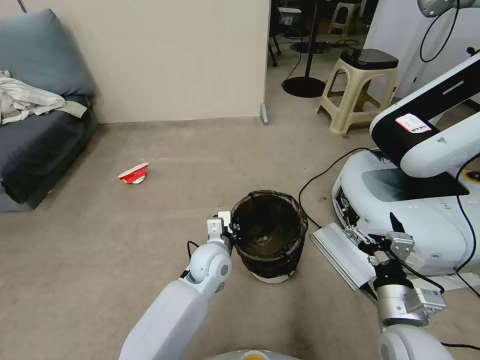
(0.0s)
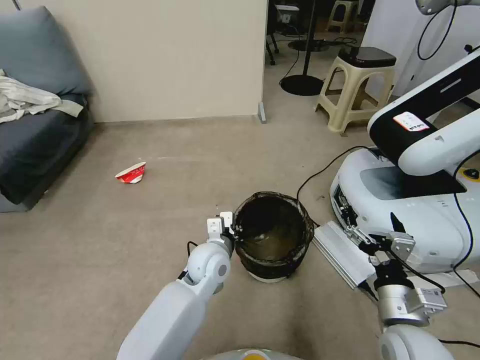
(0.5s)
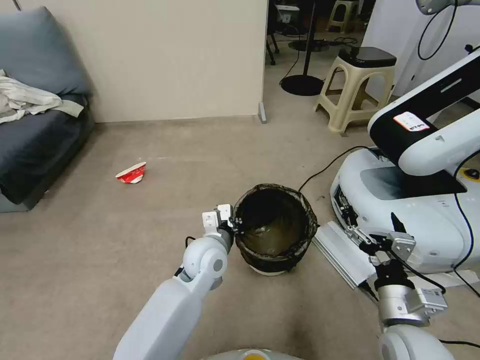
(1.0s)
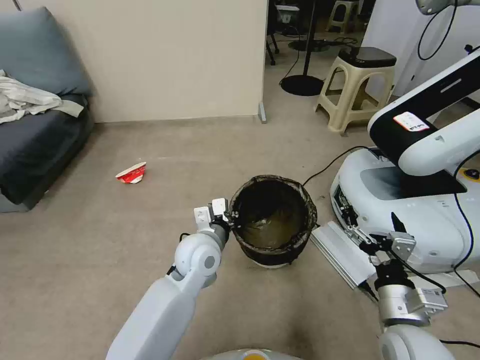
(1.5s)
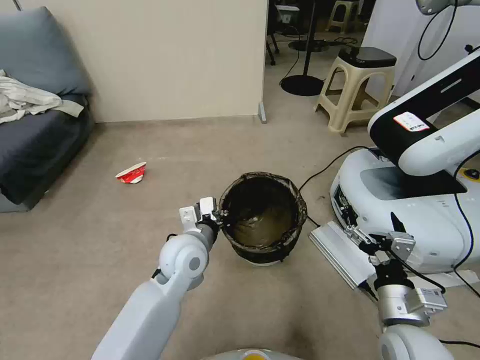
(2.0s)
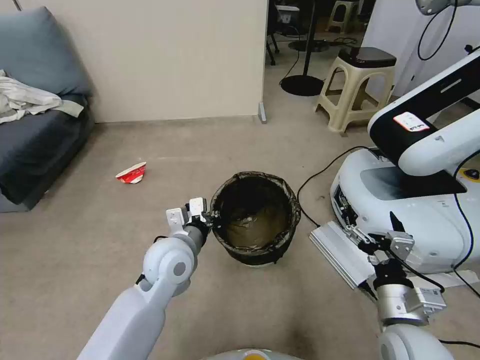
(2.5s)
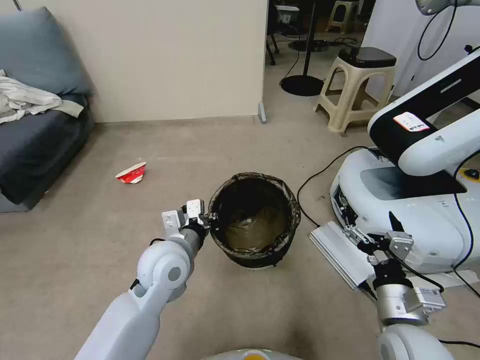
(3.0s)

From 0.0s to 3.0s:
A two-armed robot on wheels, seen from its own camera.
Task of the whole recording: Pick up the trash can from the floor.
From 0.0s to 1.5s: The left gripper travels upward by roughly 5 cm.
From 1.5s to 3.0s: The left gripper travels to the left by roughly 5 cm.
